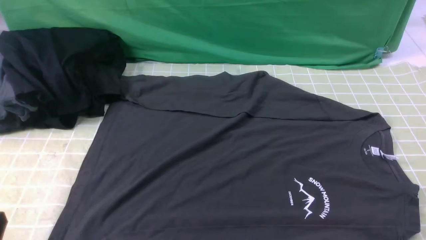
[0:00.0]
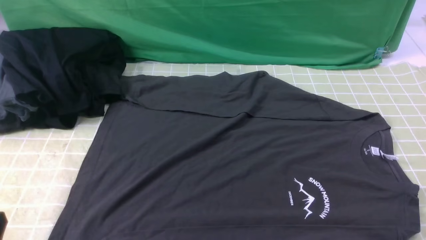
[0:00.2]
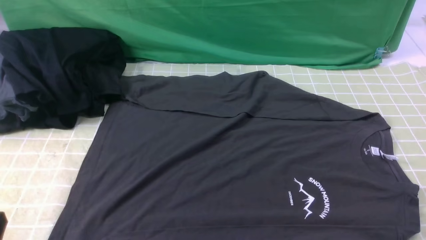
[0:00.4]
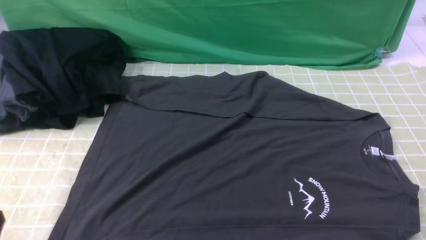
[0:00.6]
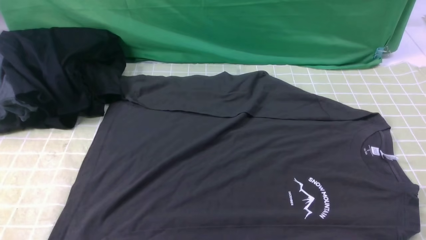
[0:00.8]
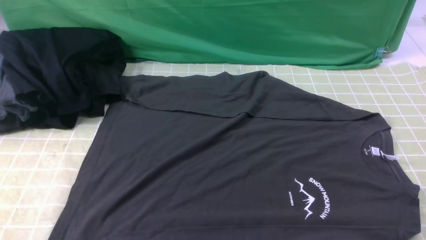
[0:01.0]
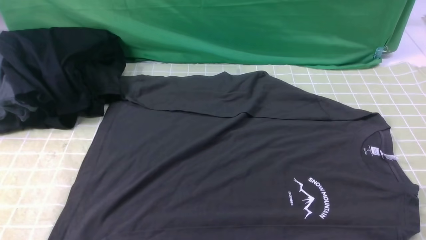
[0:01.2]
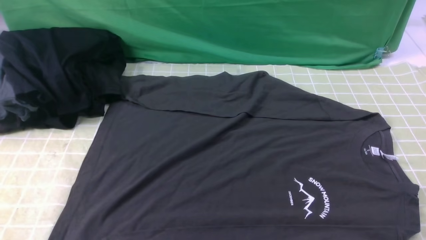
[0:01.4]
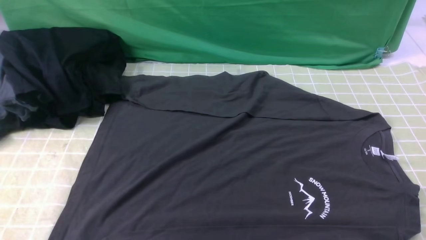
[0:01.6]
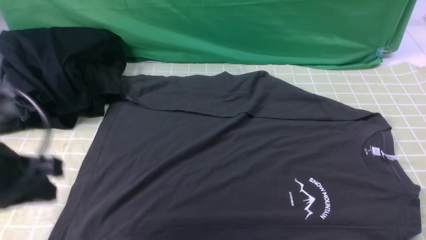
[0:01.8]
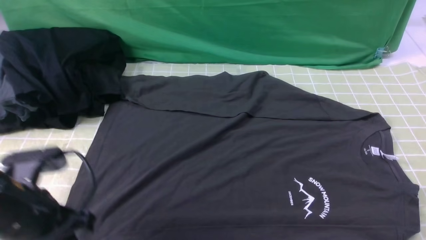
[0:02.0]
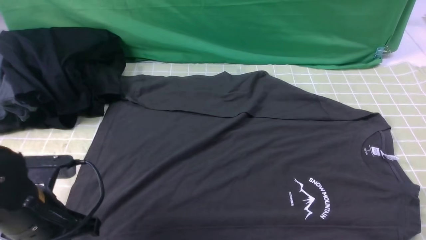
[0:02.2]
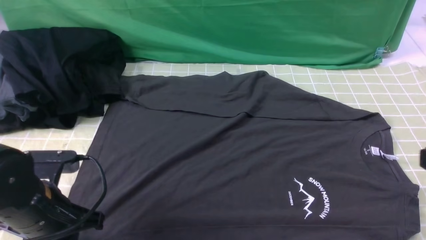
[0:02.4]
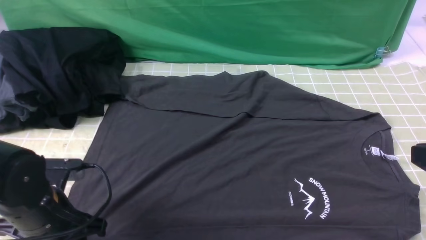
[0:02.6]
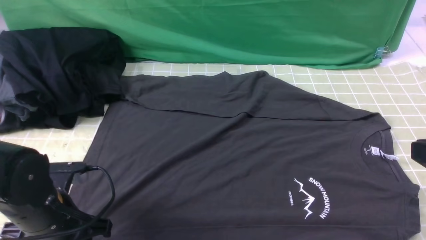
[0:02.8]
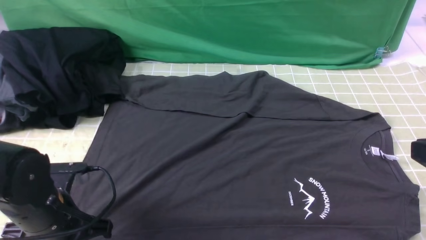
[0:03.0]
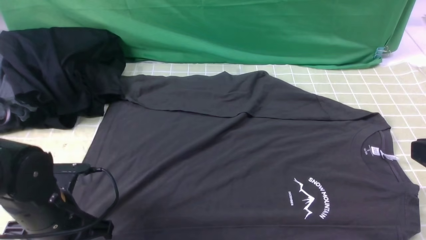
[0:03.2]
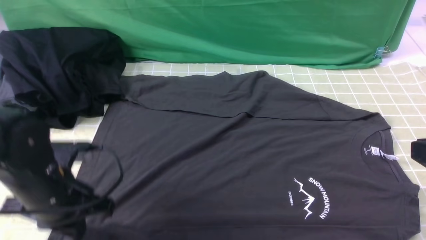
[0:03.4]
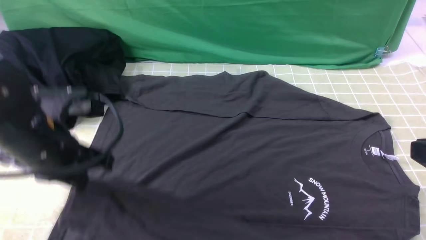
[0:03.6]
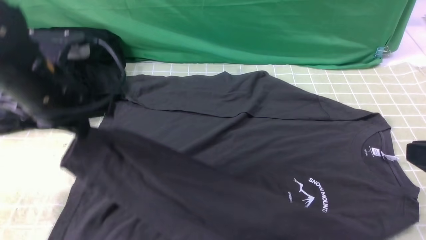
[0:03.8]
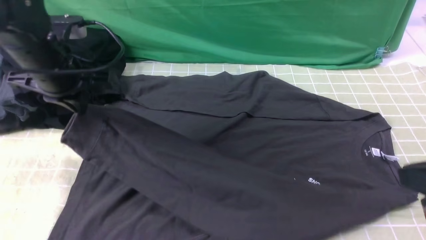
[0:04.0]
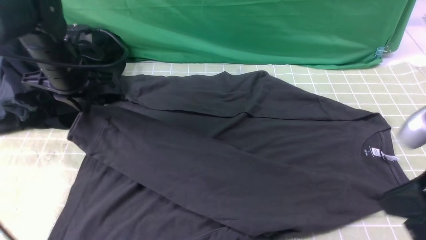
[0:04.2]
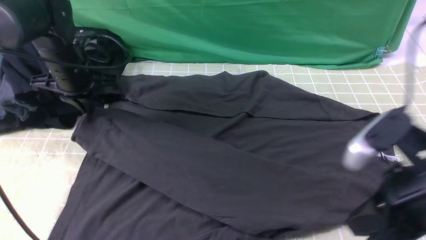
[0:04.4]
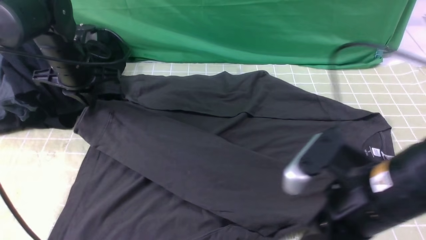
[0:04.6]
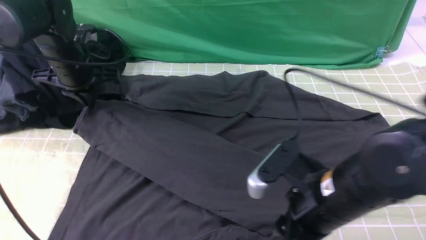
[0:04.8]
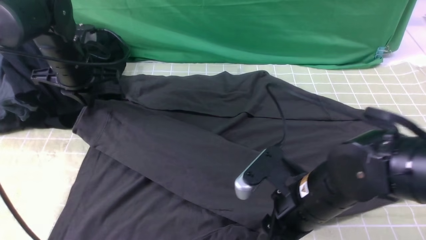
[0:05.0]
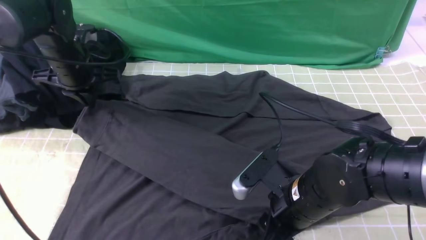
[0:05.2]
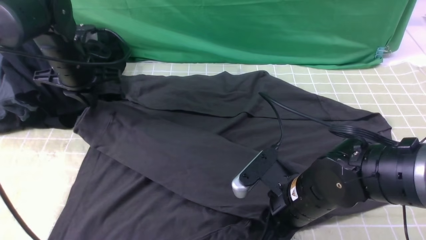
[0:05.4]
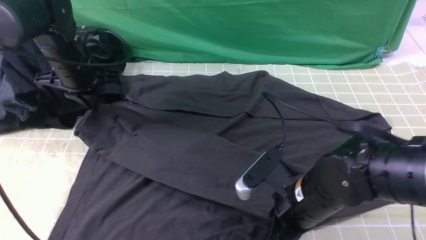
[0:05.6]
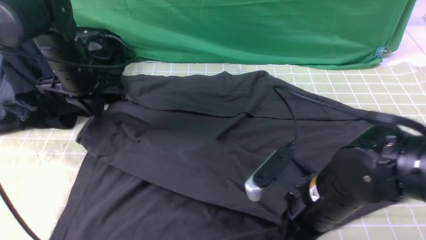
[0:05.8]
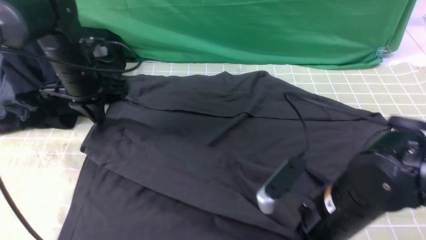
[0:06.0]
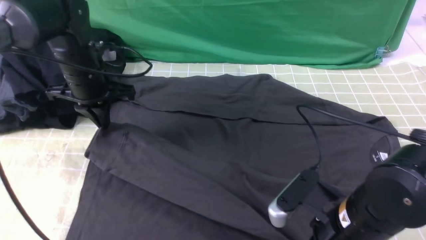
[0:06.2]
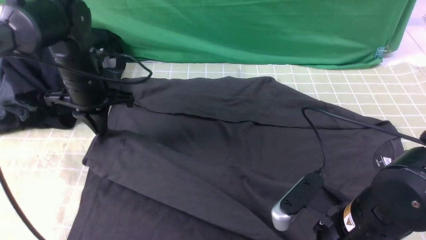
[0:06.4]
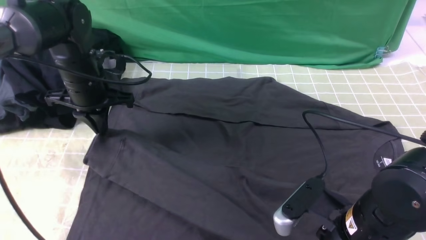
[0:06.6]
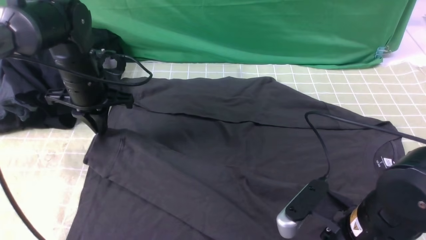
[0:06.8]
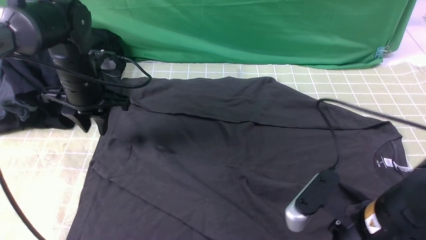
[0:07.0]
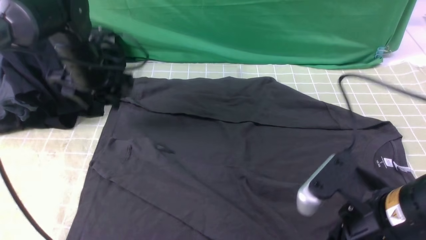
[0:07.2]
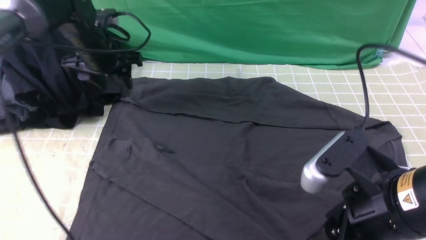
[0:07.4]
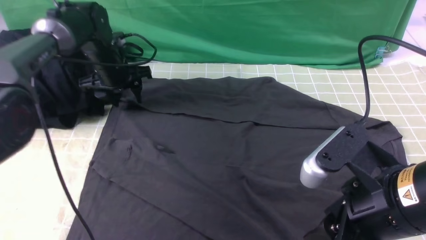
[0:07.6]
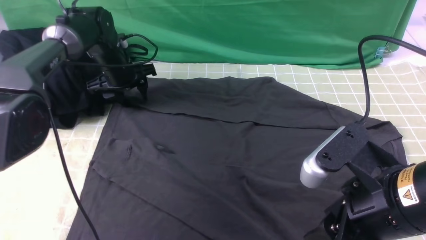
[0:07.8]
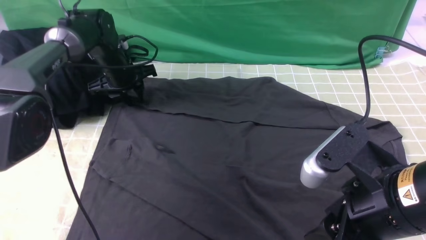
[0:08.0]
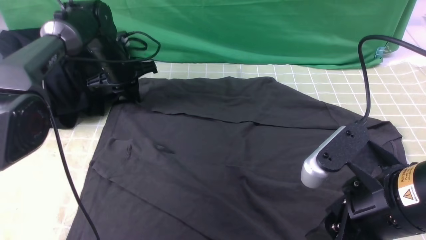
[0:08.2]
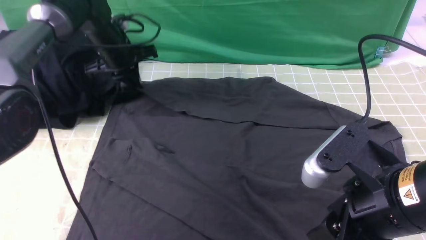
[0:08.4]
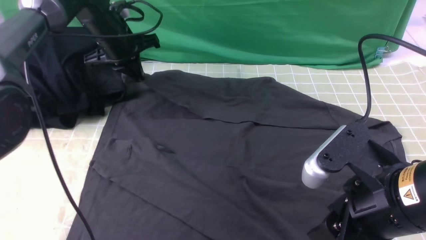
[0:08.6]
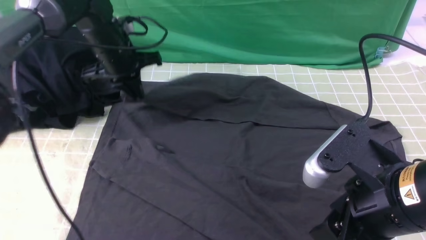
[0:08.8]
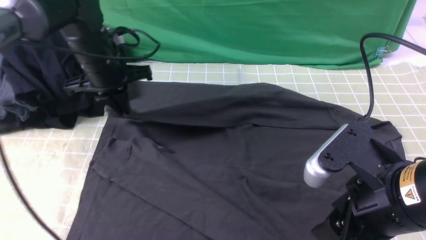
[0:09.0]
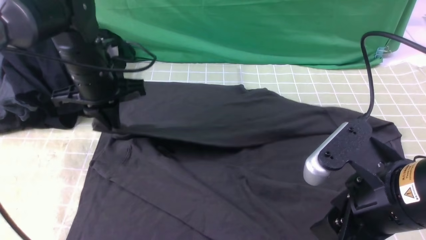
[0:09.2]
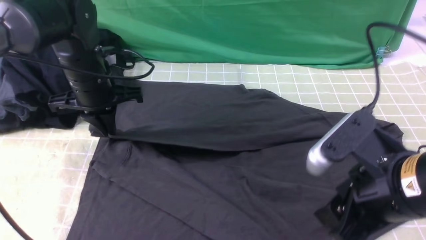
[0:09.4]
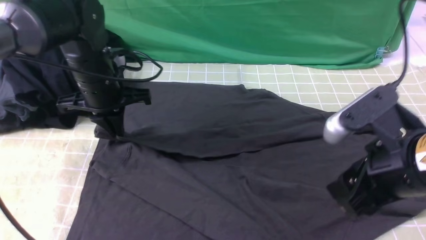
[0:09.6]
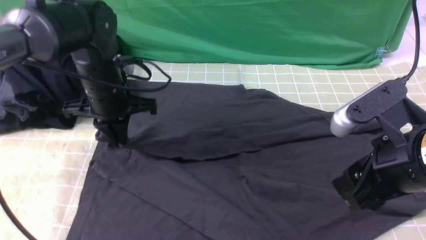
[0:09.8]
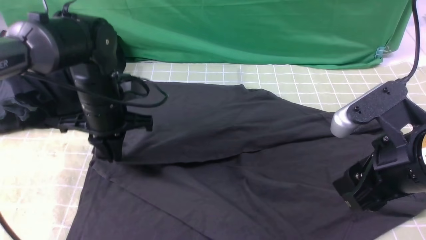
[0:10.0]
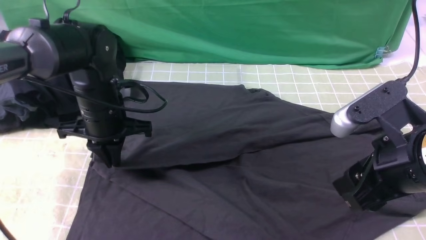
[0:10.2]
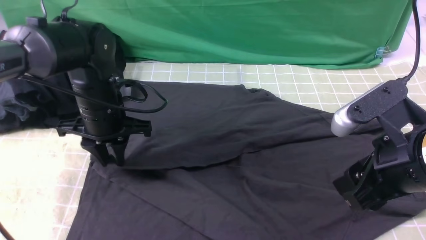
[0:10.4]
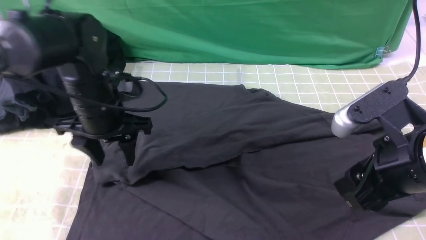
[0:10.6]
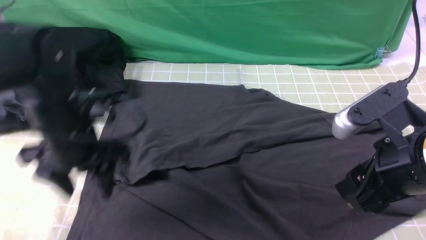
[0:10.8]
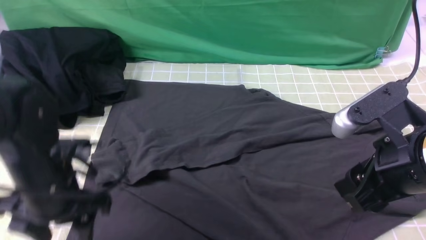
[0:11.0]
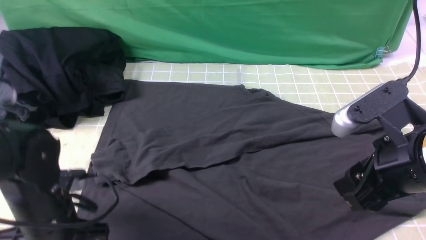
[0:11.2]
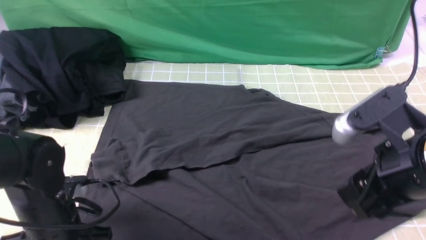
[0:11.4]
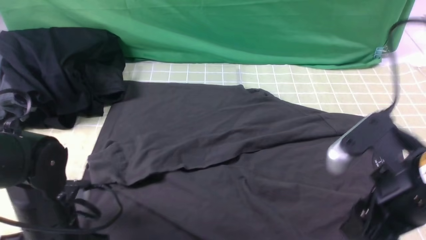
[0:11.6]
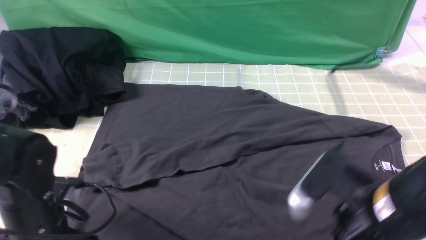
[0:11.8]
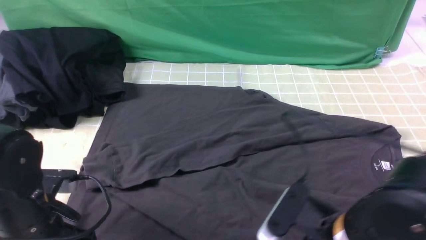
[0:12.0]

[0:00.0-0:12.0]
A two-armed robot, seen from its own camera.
Step, 0:00.0 to 0:03.0: use the left arm to clamp the cuff closest to it.
Step, 0:03.2 to 0:07.0: use the left arm to drag and place the cuff at the centered position on the left edge of the fabric.
Step, 0:07.2 to 0:08.0: use the left arm to clamp the cuff farthest from it.
Step, 0:08.2 to 0:10.6: use the left arm to drag and drop the cuff onto the cuff closest to the left arm.
0:01.6 to 0:03.0: The right gripper is displaced upward, forward and to the left by approximately 15 cm, while the left gripper heads downward and forward, covering approximately 20 cm, and opens, then closes once more.
0:03.0 to 0:04.4: The right gripper travels to the left by roughly 5 cm. The left gripper shifts about 20 cm forward.
0:04.4 to 0:06.0: The right gripper goes about 10 cm downward and to the left, and opens, then closes once more.
0:06.0 to 0:07.6: The left gripper travels forward by approximately 10 cm, and opens up, while the right gripper is displaced upward by approximately 10 cm, and opens its fingers.
0:07.6 to 0:09.0: The left gripper heads backward and upward, covering roughly 10 cm, and closes.
0:09.0 to 0:10.4: The left gripper heads backward, covering roughly 5 cm, and opens.
0:10.4 to 0:12.0: The right gripper shifts roughly 10 cm downward and to the left, while the left gripper is displaced backward by some 15 cm, and closes its fingers.

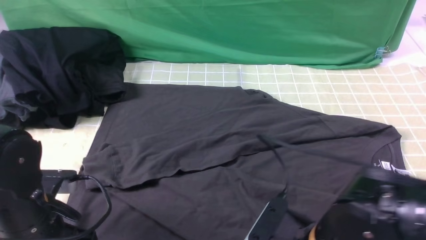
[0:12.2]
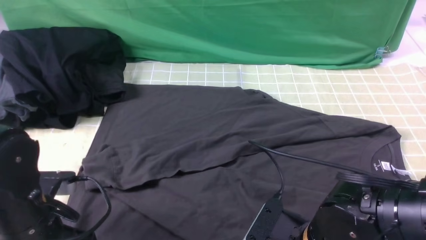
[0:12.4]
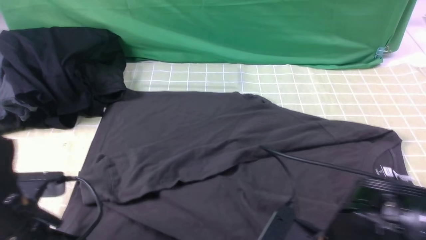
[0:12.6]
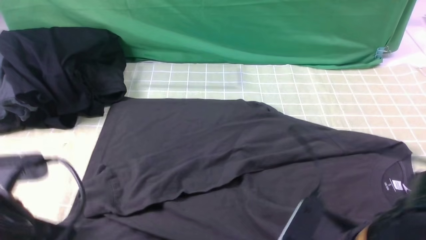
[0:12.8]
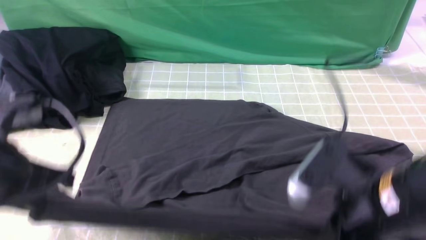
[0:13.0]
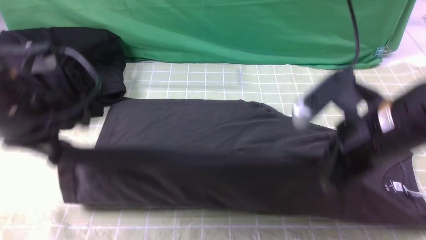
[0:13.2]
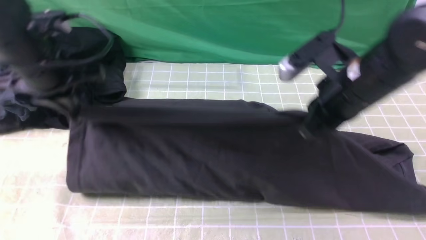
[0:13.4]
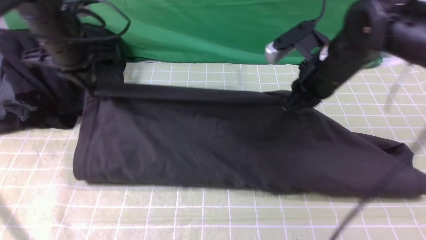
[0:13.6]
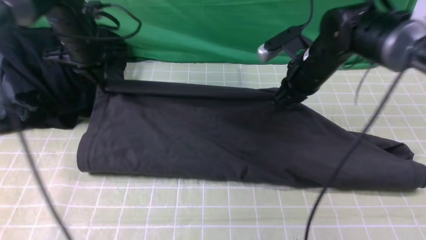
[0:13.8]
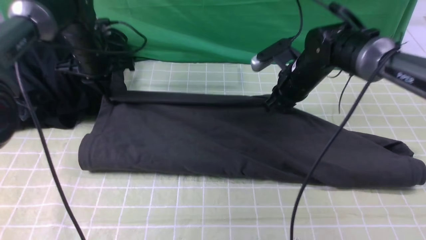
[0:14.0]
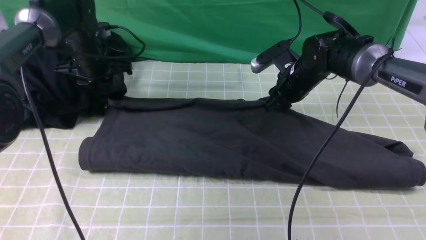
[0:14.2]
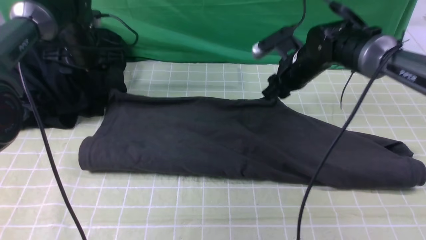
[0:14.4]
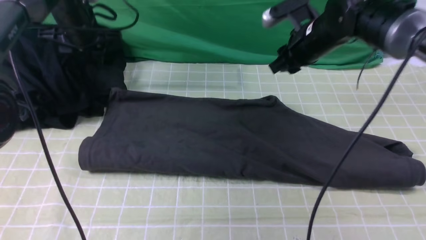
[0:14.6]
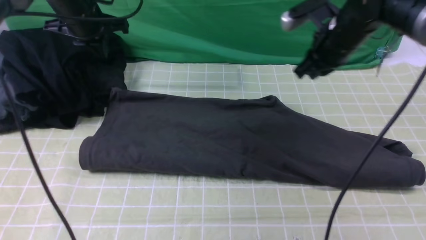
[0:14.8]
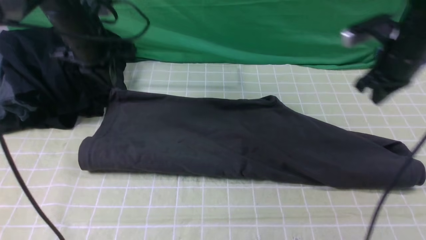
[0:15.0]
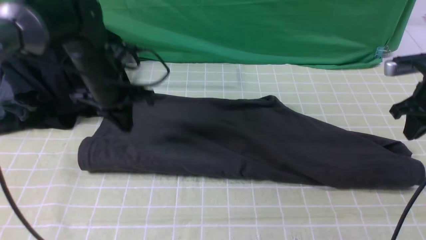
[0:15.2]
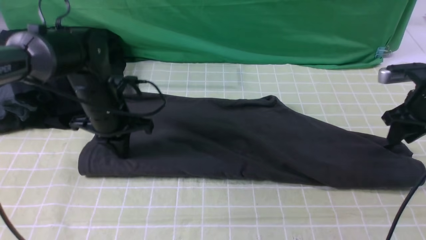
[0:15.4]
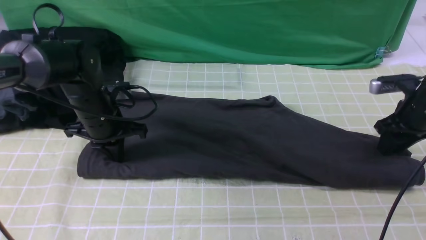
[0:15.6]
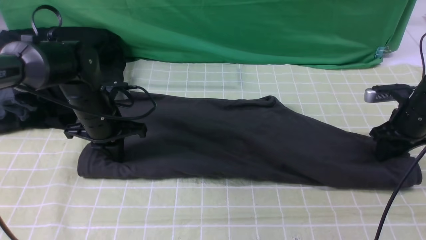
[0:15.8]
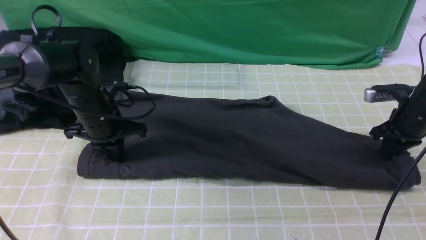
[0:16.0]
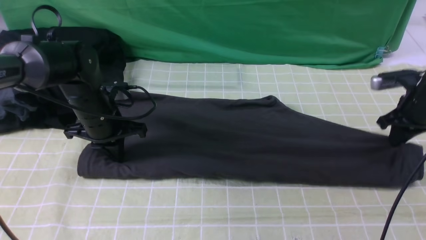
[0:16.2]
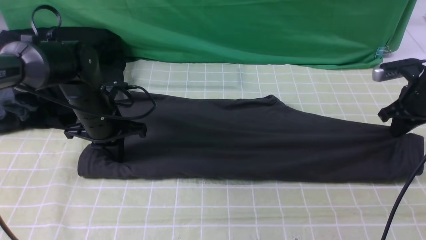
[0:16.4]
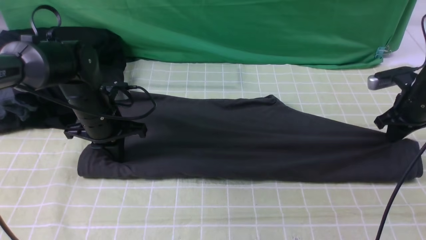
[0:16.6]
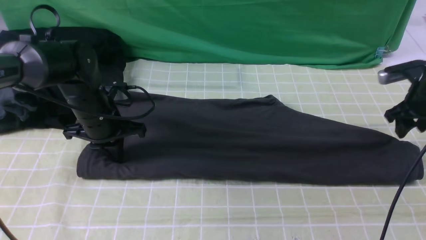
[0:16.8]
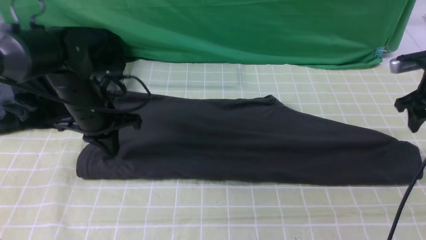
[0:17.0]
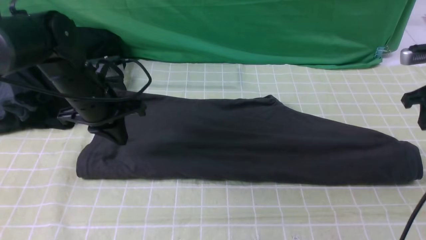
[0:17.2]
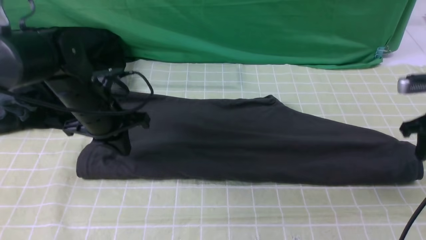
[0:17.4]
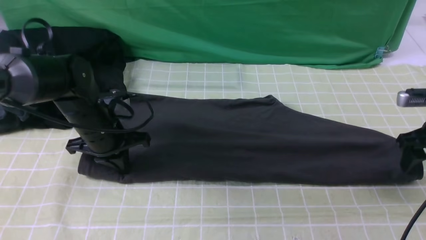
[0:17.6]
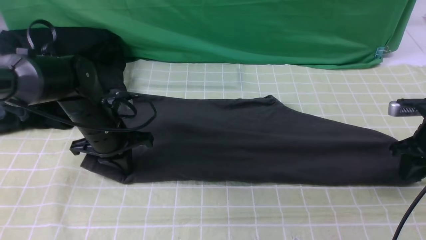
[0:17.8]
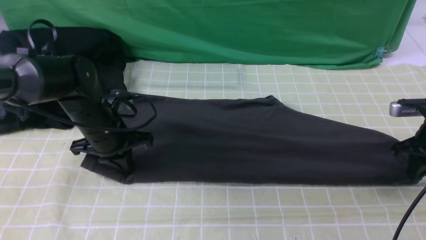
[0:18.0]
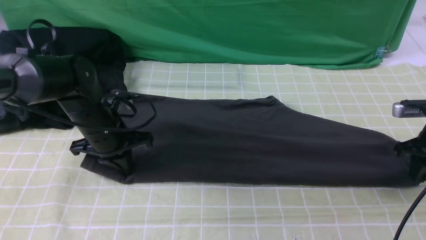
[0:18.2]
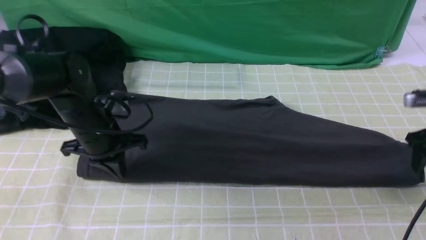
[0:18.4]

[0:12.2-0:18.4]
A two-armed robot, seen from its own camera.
Step, 0:12.6 to 0:14.4: use both arms to drag the lower edge of the fabric forward and fold it over the upper edge.
0:12.2 to 0:13.8: Both grippers travel together forward, roughly 30 cm. The right gripper closes up.
0:13.8 to 0:15.4: The left gripper travels backward and downward by some 10 cm, and opens, then closes again. The right gripper moves to the right, roughly 20 cm, and opens its fingers.
0:15.4 to 0:16.8: The right gripper closes, then reopens.
0:16.8 to 0:18.4: The right gripper is displaced backward by roughly 5 cm.
